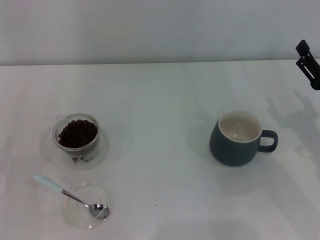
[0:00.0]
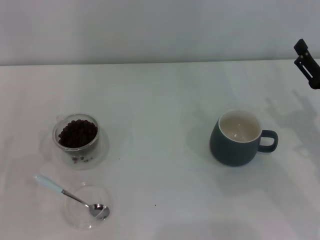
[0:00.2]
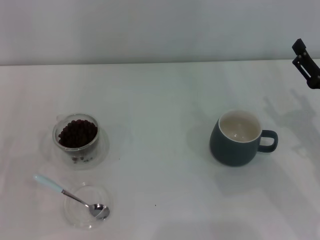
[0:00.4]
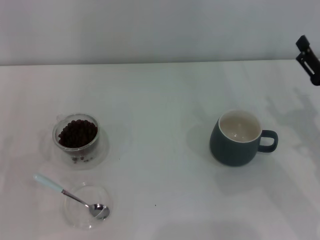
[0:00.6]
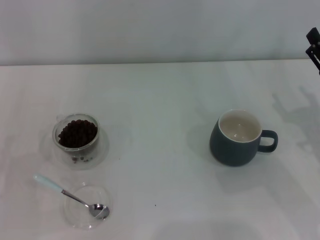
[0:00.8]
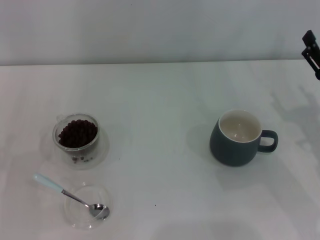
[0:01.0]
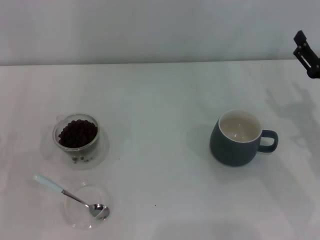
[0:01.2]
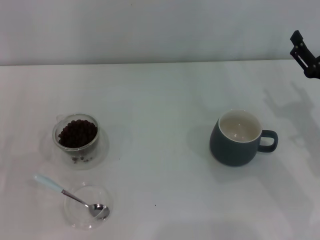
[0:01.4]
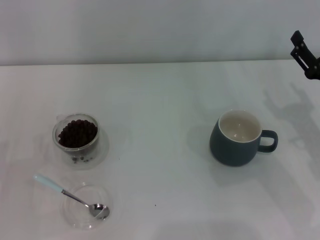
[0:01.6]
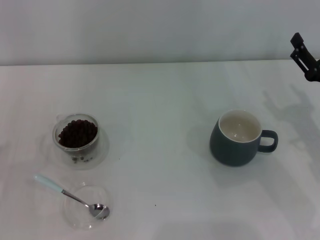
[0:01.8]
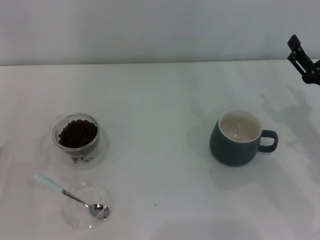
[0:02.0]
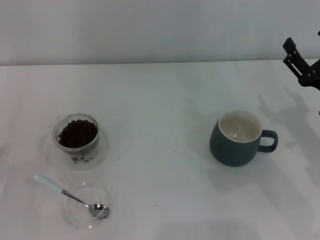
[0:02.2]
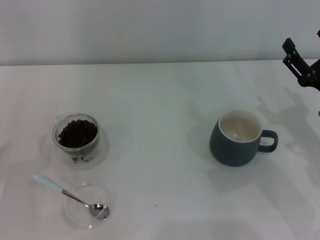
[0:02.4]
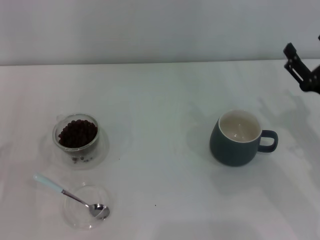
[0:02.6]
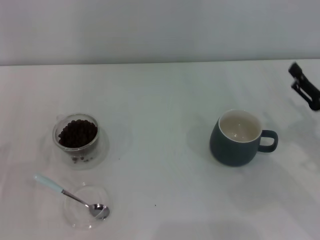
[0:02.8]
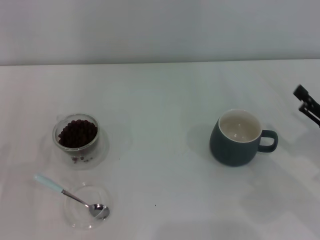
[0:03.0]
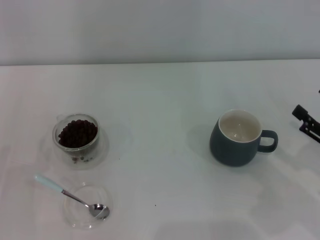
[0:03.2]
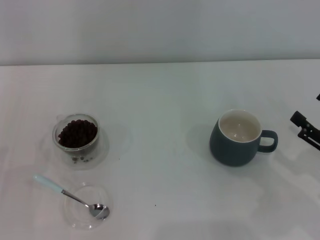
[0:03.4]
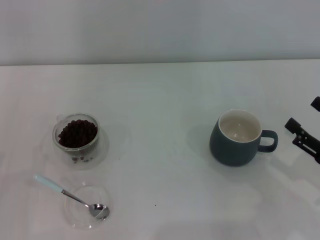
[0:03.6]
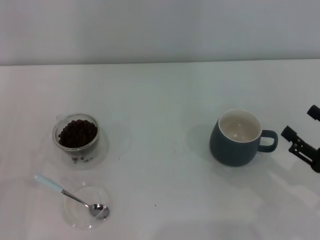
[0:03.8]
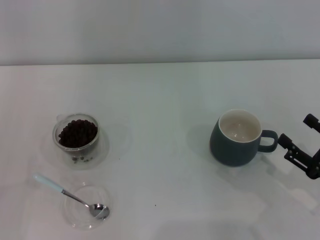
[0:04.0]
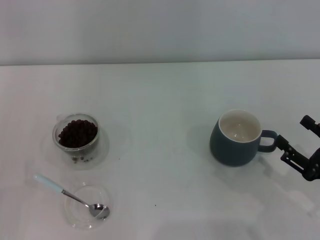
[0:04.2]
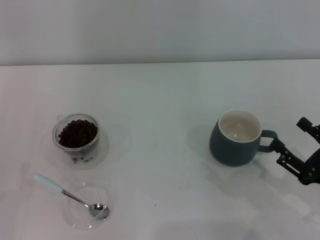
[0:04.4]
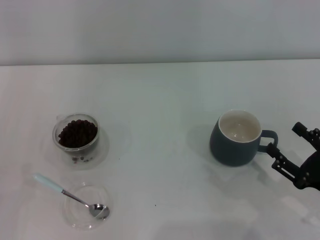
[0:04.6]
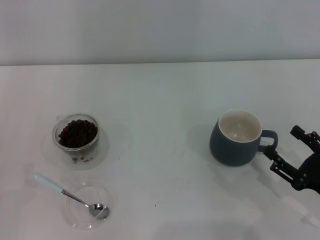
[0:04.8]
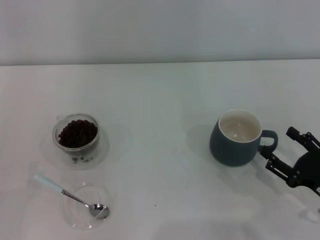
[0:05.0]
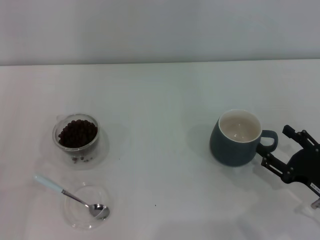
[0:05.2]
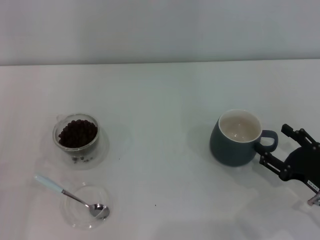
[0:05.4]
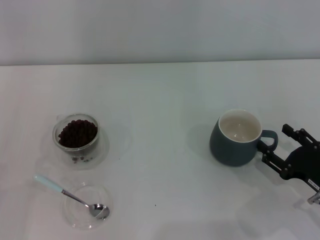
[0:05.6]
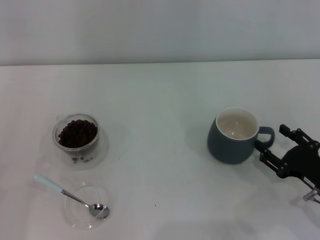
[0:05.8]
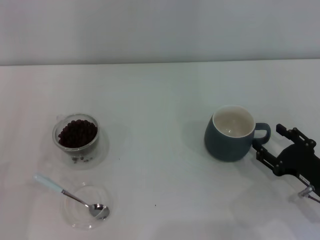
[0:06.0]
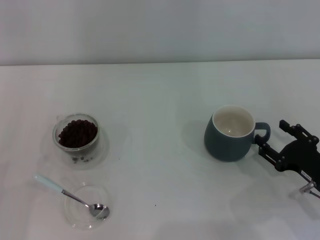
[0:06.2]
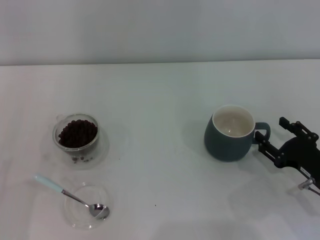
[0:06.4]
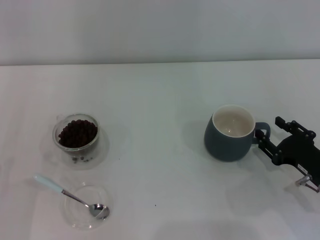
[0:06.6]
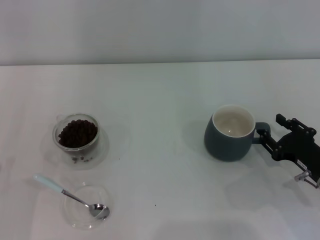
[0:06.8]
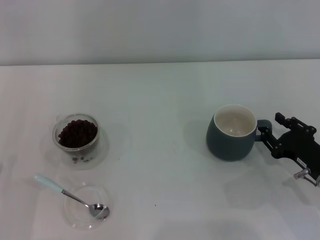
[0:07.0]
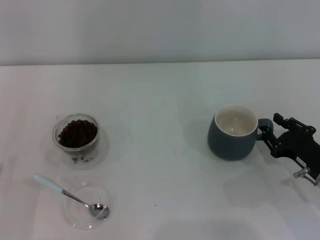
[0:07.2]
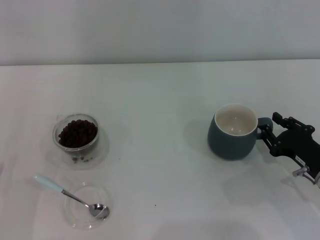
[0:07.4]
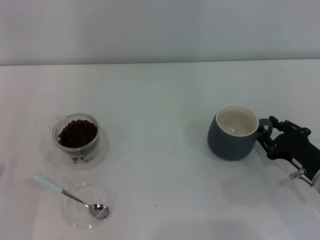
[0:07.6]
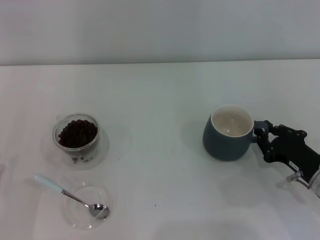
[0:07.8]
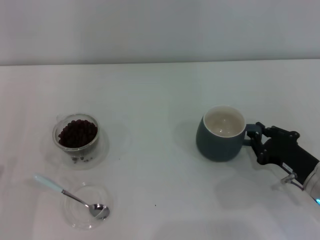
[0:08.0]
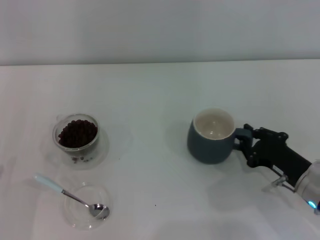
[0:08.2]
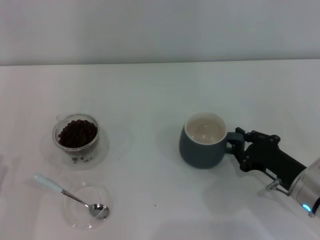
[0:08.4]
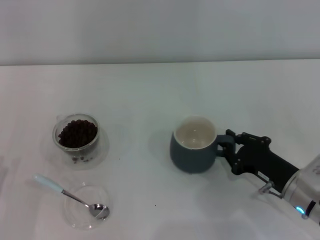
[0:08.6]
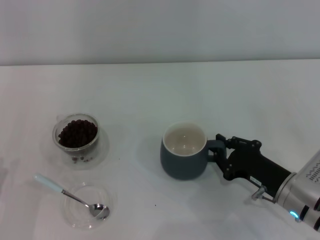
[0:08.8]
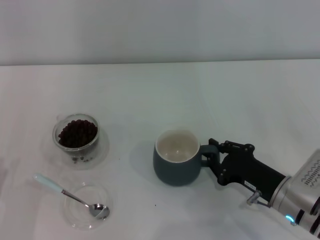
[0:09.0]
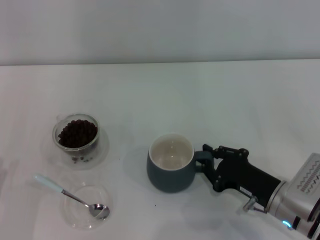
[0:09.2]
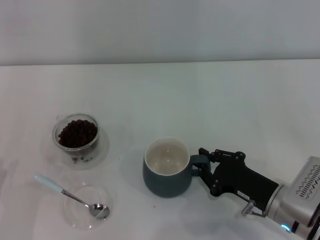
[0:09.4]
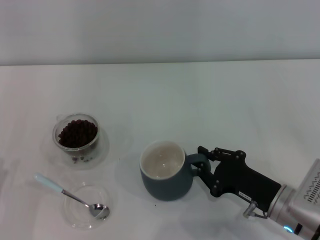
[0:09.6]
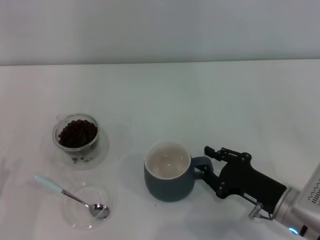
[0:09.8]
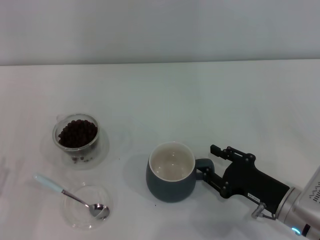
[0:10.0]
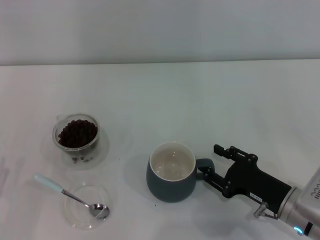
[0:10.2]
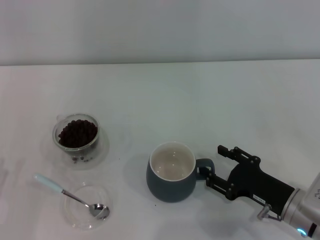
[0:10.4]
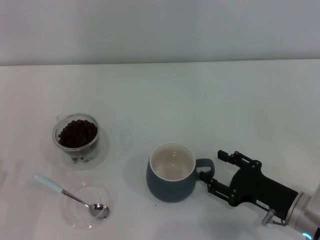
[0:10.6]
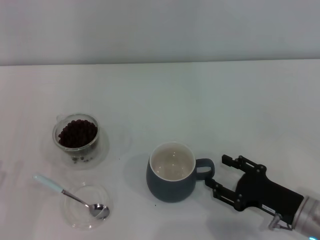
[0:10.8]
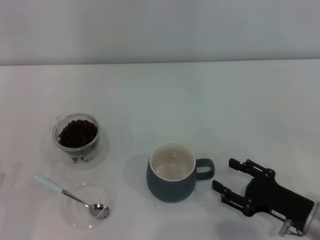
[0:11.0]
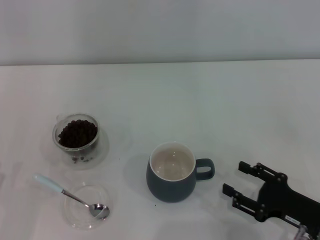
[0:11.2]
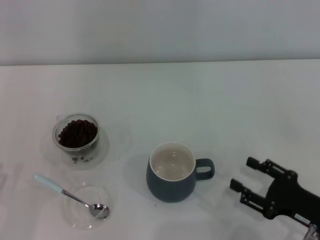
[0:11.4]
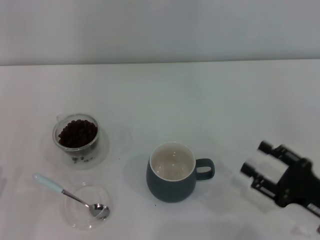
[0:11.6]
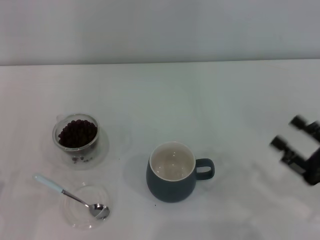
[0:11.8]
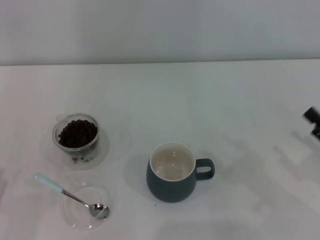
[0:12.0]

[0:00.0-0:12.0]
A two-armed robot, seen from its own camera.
Task of the whole recording: Use a blue spoon to take out the coffee beans from the glass and pour them into the gray cup.
Step, 0:00.0 to 0:11.6: Move the cup to the center of view with the left gripper.
0:01.6 to 0:03.0: The right gripper is displaced backward by roughly 5 cm.
0:03.0 to 0:04.4: The right gripper travels backward by some 5 cm.
0:04.4 to 0:06.0: The right gripper shifts by approximately 5 cm.
0:06.0 to 0:07.6: The right gripper closes up.
0:07.6 to 0:09.0: The right gripper goes about 5 cm to the left.
0:09.0 to 0:10.4: The right gripper opens its fingers.
0:10.4 to 0:12.0: The right gripper shifts approximately 10 cm to the right and upward.

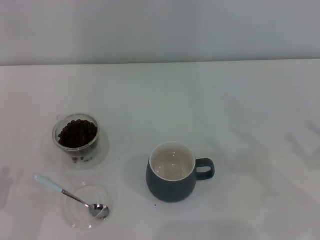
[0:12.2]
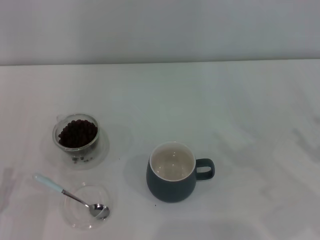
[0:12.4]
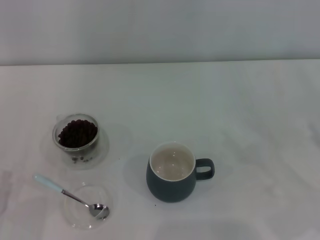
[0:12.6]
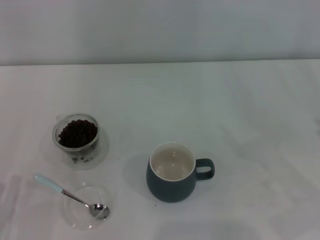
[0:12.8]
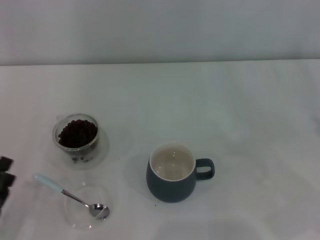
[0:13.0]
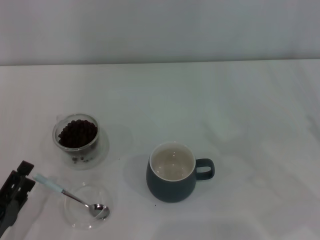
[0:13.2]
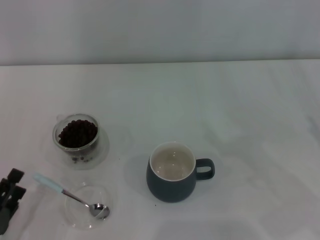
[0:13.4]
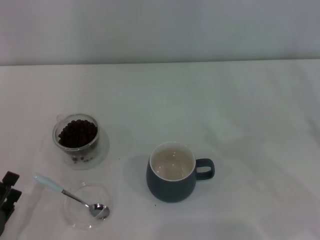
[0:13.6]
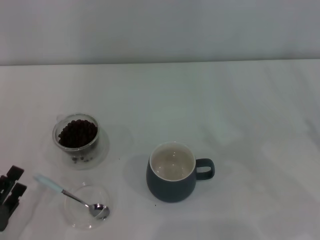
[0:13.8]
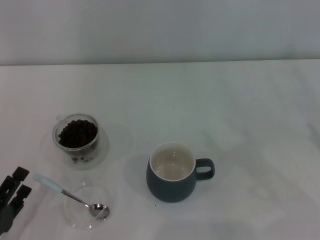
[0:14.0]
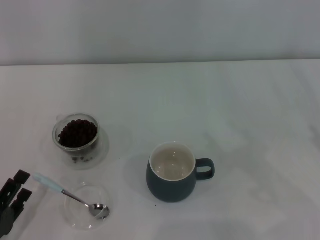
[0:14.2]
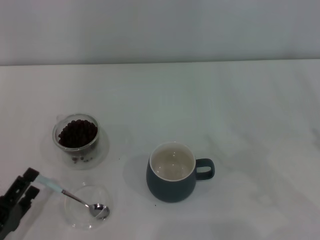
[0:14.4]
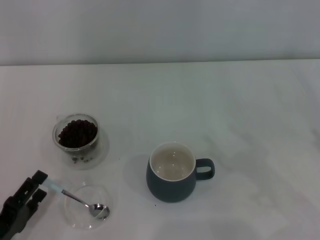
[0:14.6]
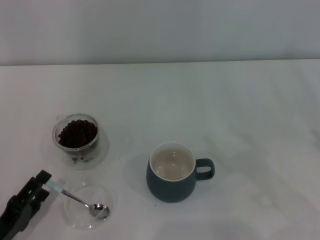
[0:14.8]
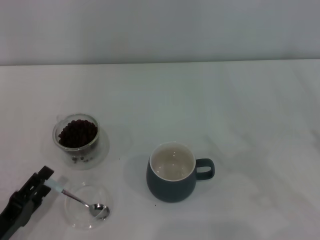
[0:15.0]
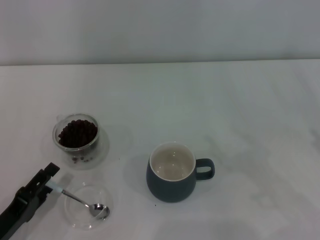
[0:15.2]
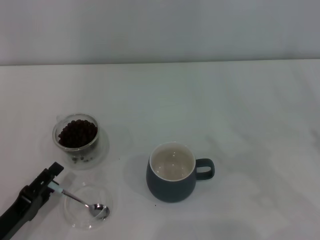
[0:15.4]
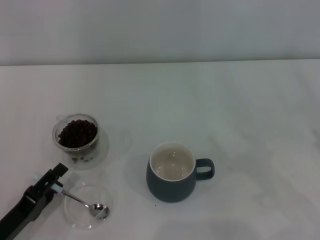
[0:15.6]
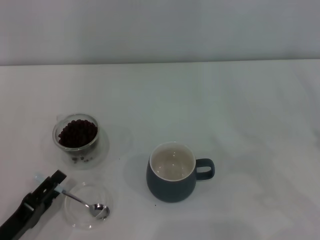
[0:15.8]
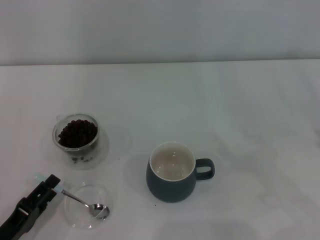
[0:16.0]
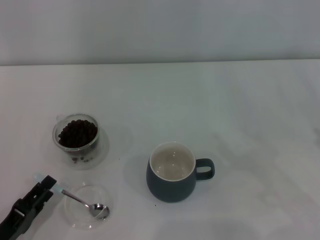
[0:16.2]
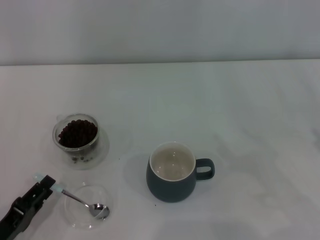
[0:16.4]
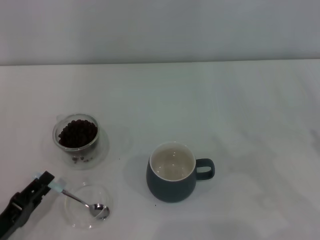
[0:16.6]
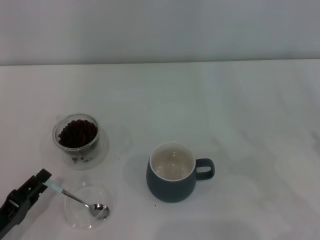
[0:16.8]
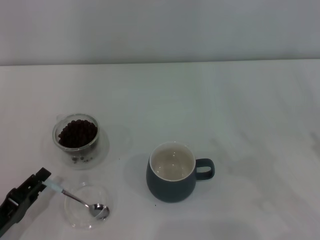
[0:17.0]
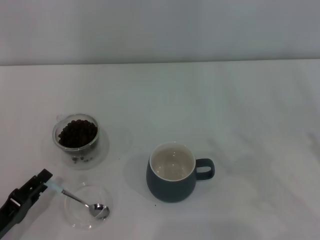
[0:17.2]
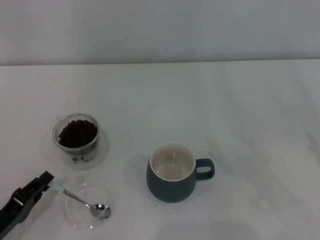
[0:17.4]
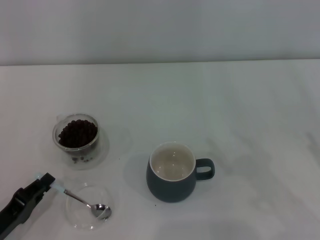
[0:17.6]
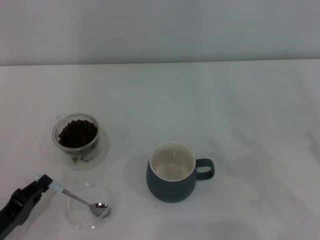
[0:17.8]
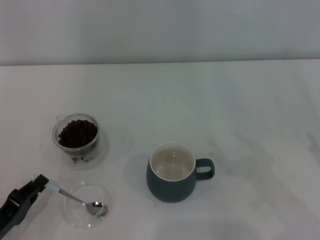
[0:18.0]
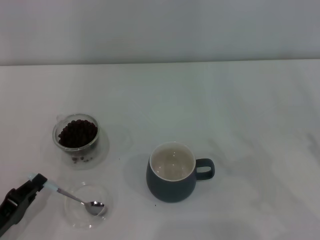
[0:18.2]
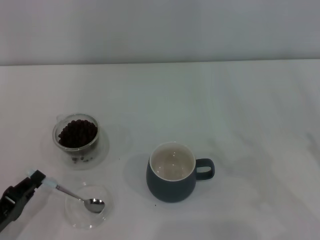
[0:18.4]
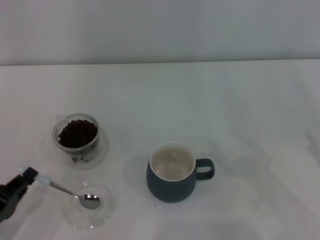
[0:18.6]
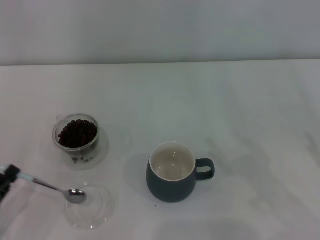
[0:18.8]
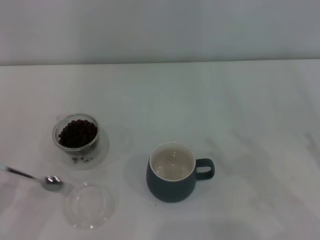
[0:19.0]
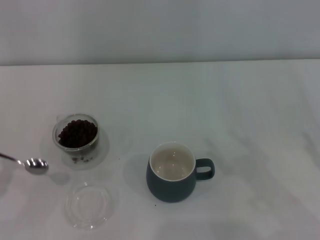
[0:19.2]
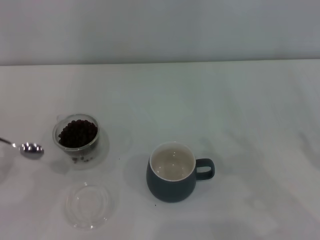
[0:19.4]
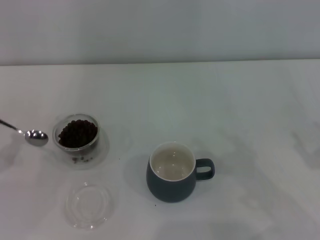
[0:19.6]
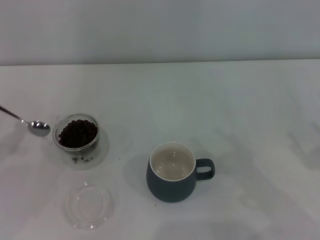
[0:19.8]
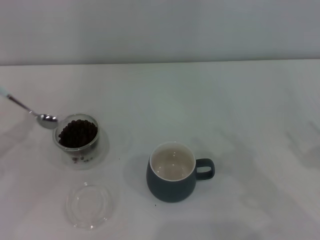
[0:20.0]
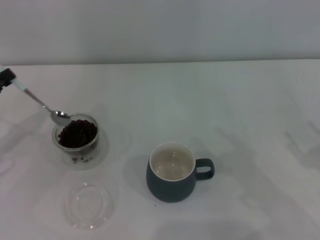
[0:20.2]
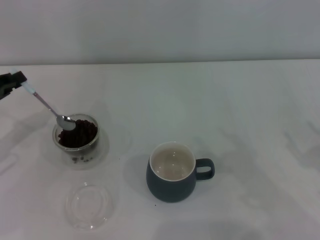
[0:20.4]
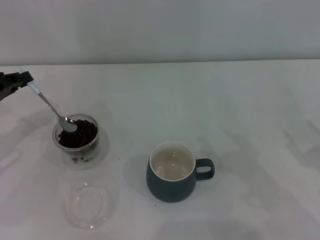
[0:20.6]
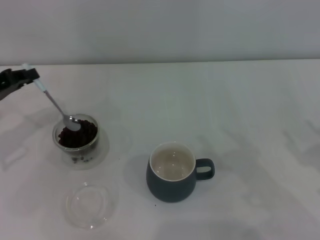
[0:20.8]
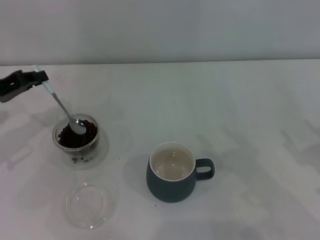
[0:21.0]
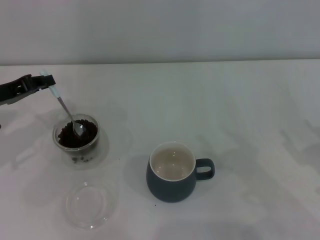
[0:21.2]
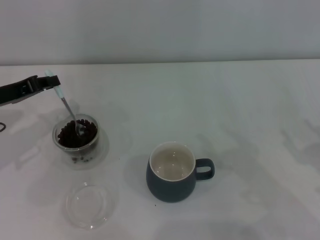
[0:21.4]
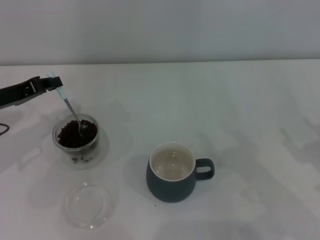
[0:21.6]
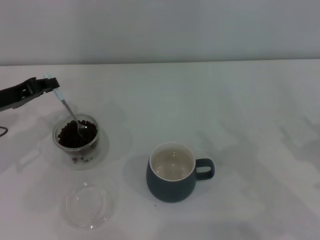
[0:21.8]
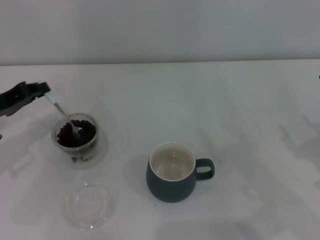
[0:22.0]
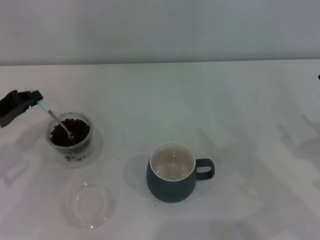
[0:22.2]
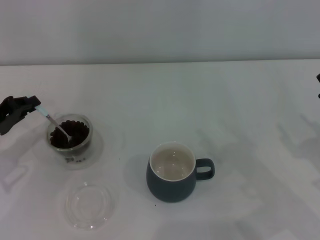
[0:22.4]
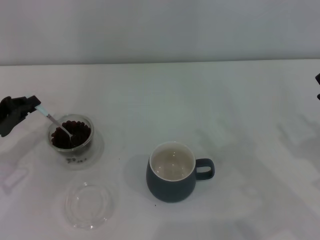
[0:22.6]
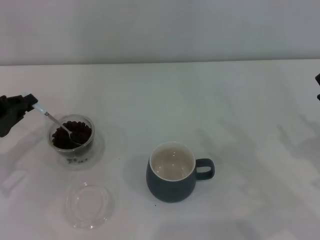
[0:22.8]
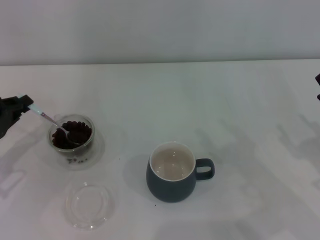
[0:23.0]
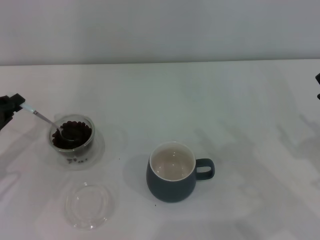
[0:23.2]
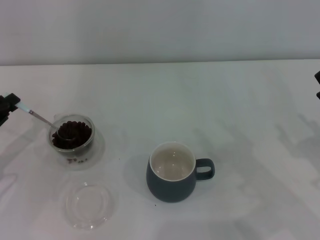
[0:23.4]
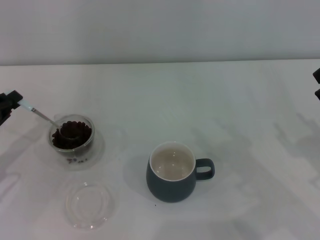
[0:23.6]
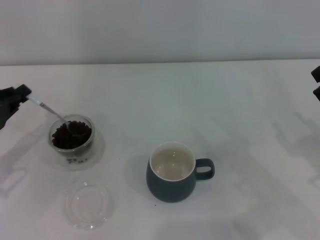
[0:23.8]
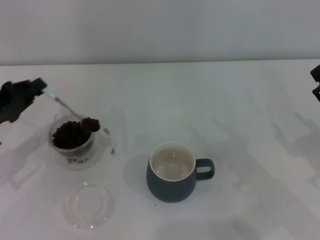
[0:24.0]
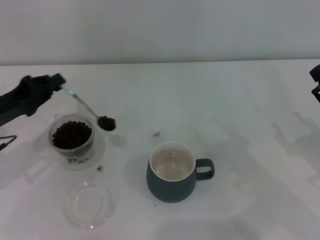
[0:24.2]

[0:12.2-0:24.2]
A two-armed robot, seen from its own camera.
Task of the whole recording: Use a blue spoon to take out the coffee beans from the glass and pour them into the gray cup.
Step, 0:12.2 to 0:19.0: Pick up the spoon with the right gripper.
0:13.8 to 0:15.2: The grippers stay close to where they were, moving slightly.
0:15.2 to 0:16.6: The left gripper closes its fingers.
0:16.6 to 0:18.2: The left gripper closes.
0:18.2 to 0:19.8: The left gripper travels upward, forward and to the left by roughly 15 cm.
0:19.8 to 0:21.2: The left gripper is displaced forward and to the right by approximately 15 cm.
0:21.2 to 0:22.6: The left gripper shifts by approximately 5 cm.
0:22.6 to 0:24.2: There are only small adjustments of the grippers.
